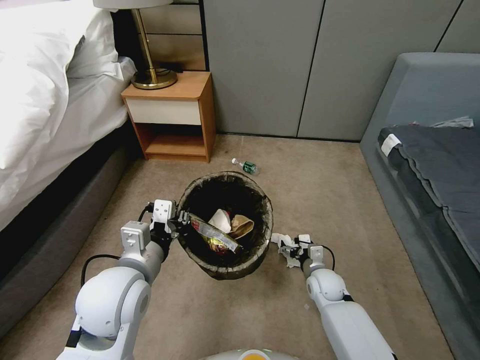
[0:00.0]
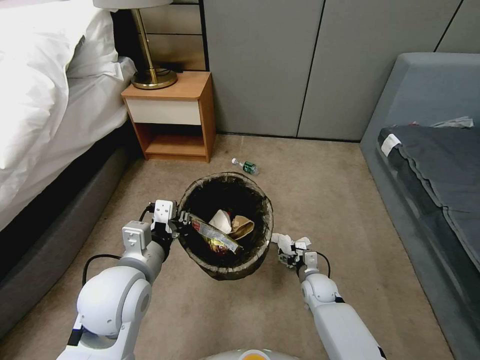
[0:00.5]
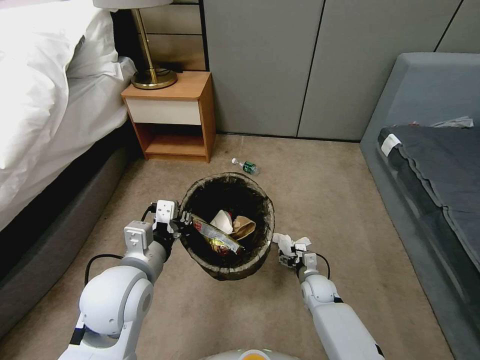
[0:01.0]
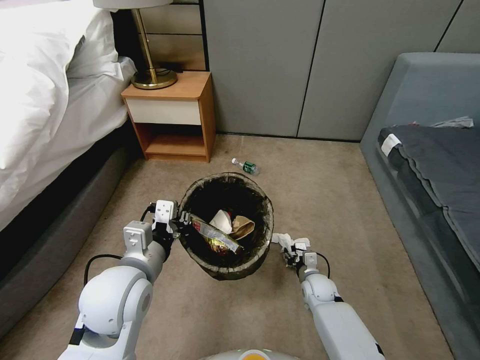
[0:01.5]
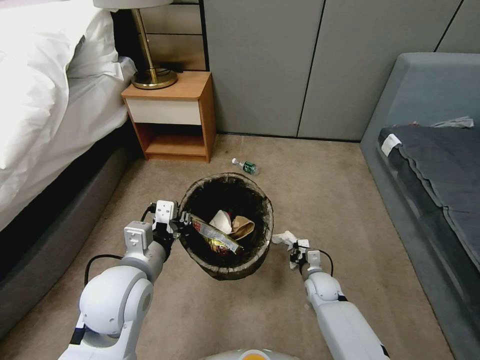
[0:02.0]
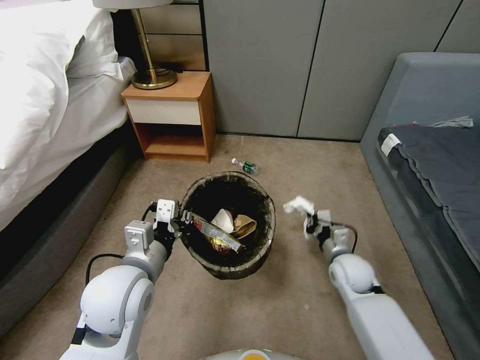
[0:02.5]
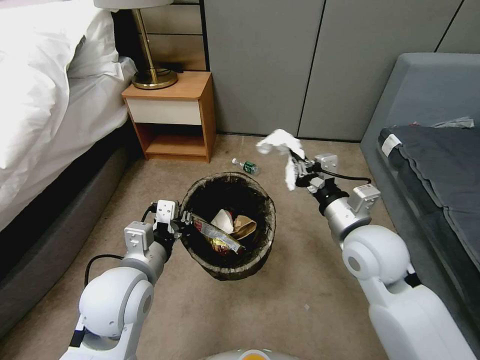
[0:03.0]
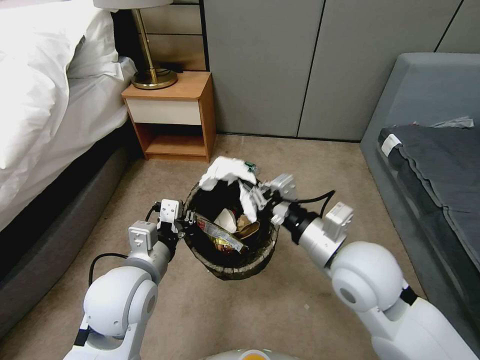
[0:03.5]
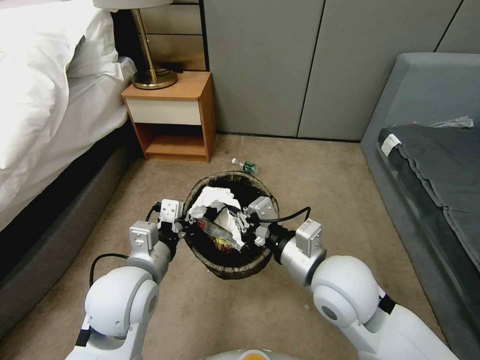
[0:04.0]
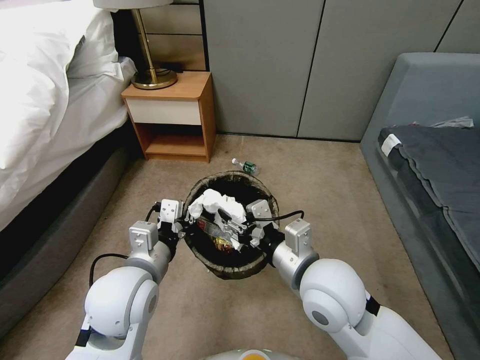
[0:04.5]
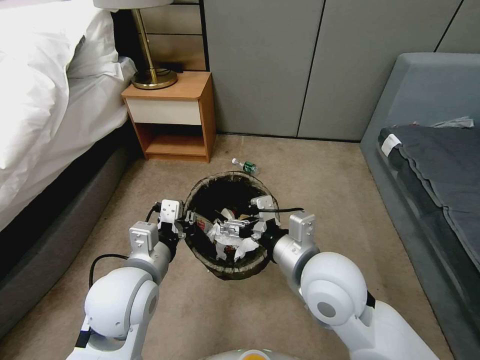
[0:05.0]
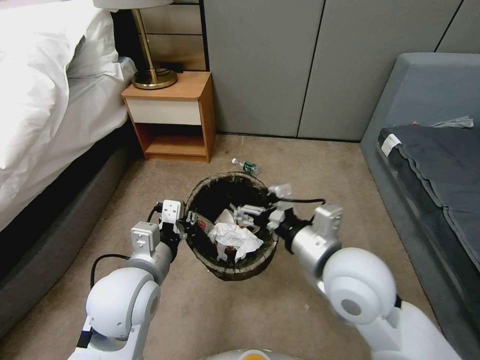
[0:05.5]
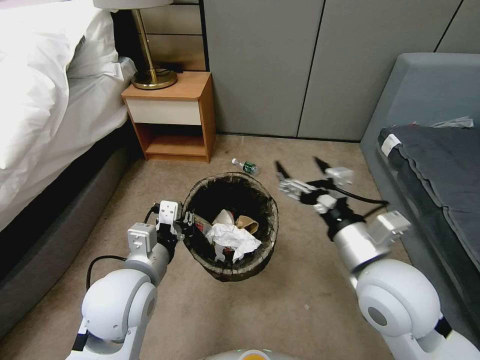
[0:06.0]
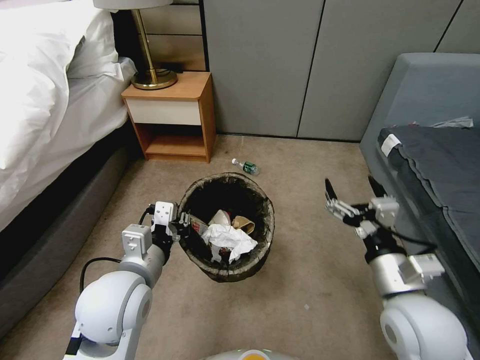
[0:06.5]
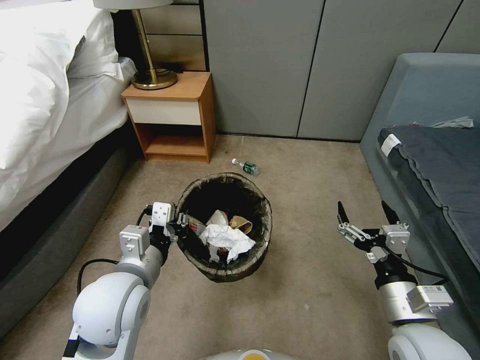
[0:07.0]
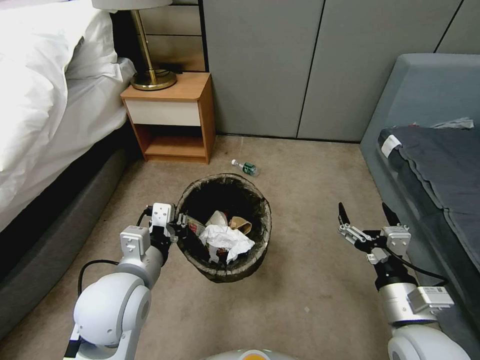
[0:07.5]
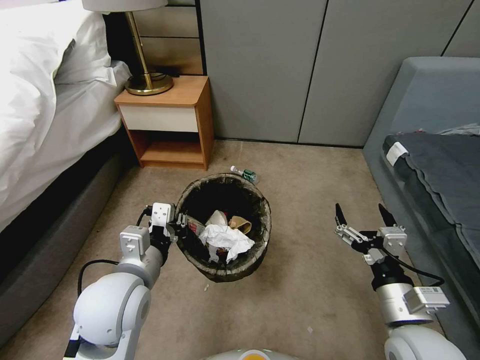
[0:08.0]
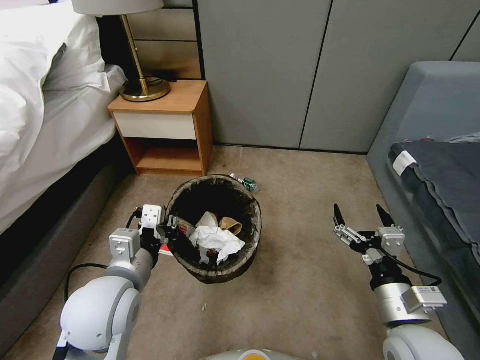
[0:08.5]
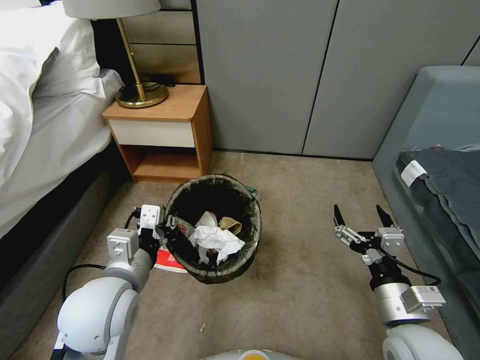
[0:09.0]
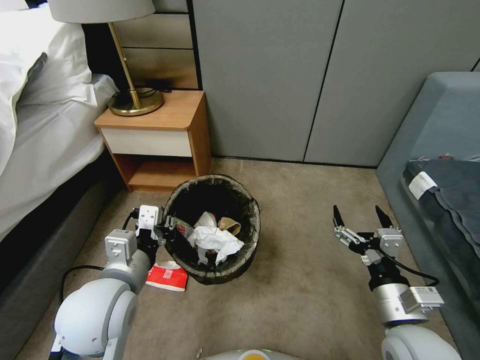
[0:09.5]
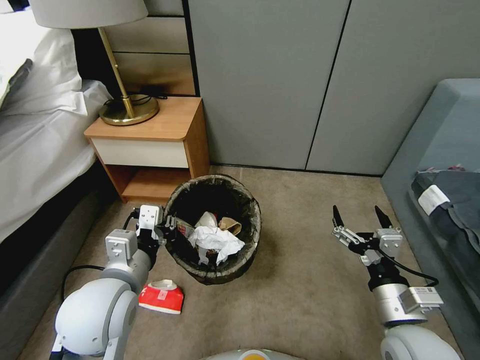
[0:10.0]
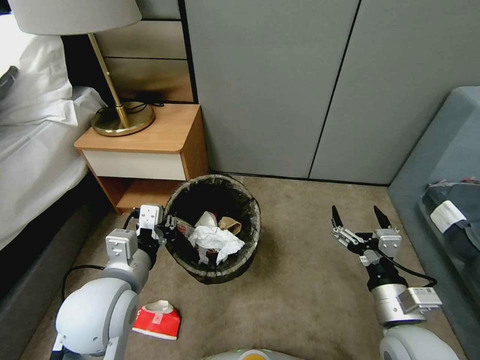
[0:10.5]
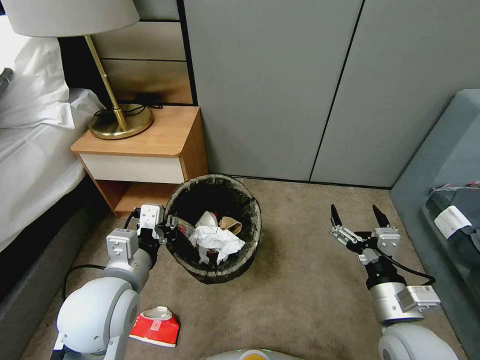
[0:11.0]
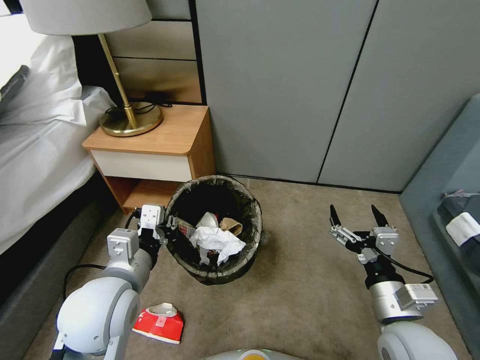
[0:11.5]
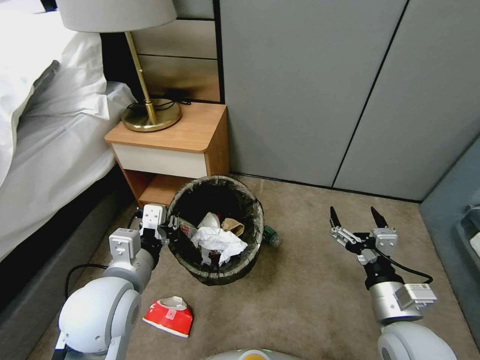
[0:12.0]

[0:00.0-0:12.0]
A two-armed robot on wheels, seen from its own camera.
Task of the whole recording: Pick up the trash bin, then pick up the garbage from the floor and place it into the trash bin.
0:00.0 to 0:02.0: The right gripper closes.
0:02.0 to 0:04.0: The right gripper shifts some 35 cm upward.
0:04.0 to 0:06.0: The right gripper goes some 5 cm to the right, and opens its fingers.
0:06.0 to 0:08.0: The right gripper shifts about 15 cm downward, to the right and backward.

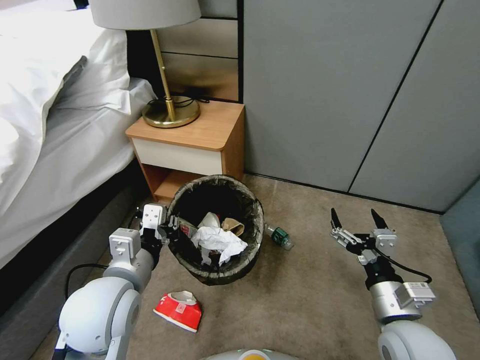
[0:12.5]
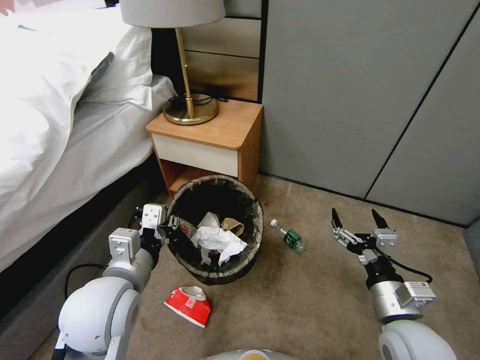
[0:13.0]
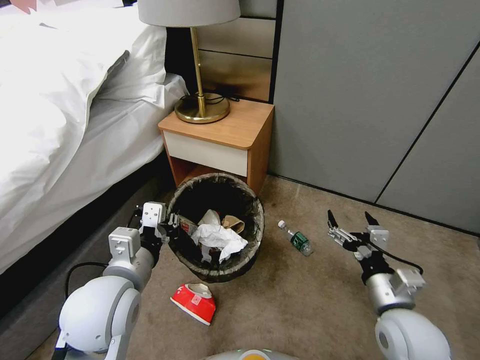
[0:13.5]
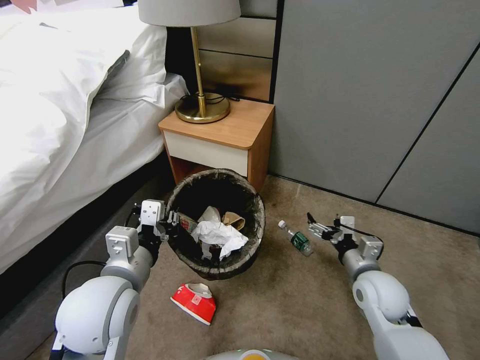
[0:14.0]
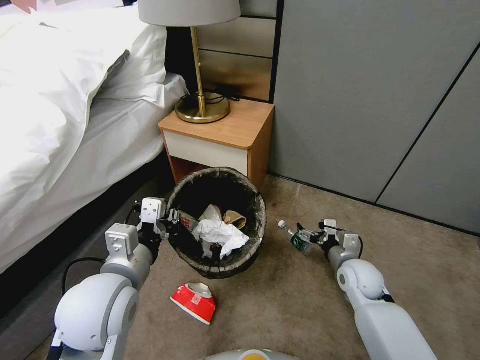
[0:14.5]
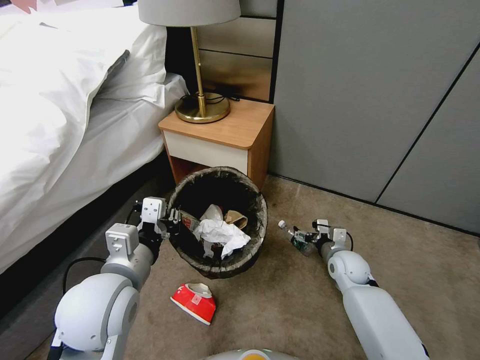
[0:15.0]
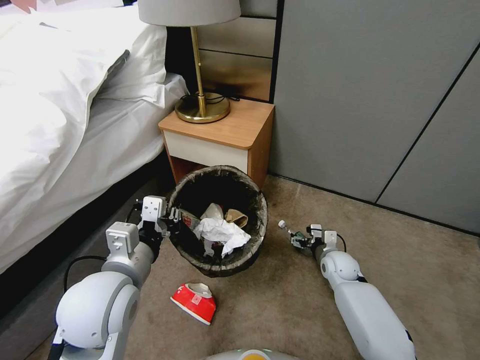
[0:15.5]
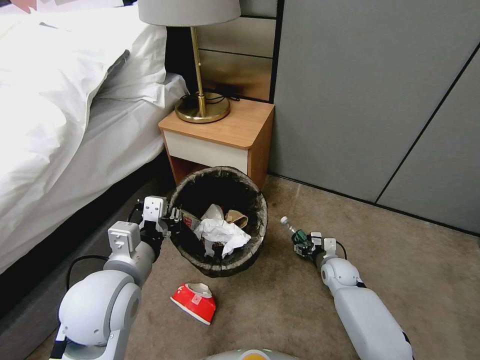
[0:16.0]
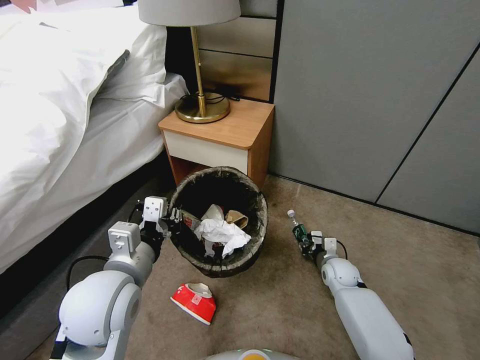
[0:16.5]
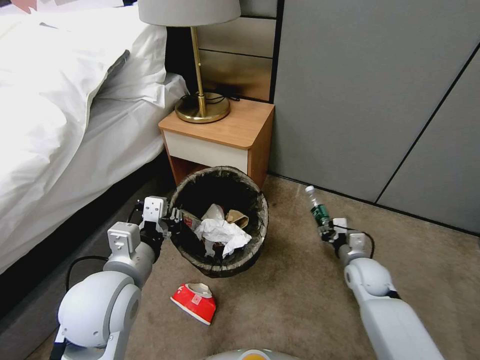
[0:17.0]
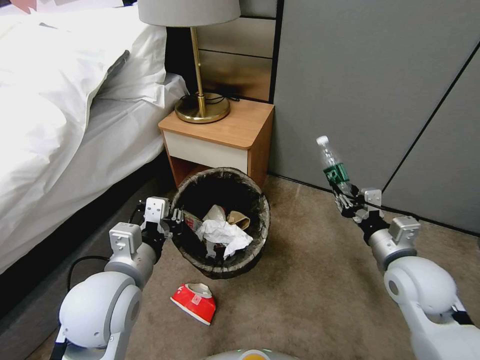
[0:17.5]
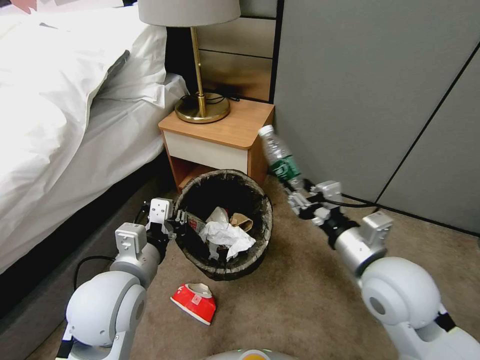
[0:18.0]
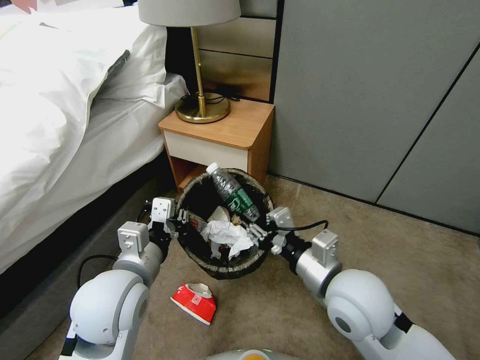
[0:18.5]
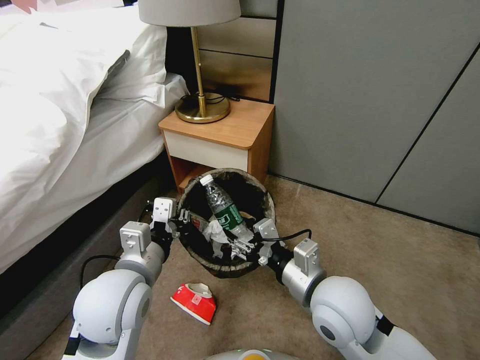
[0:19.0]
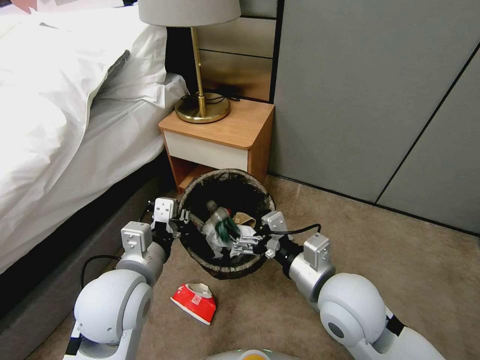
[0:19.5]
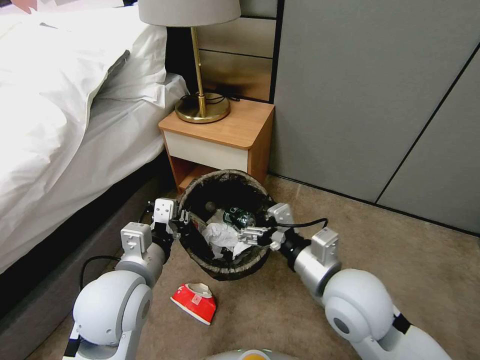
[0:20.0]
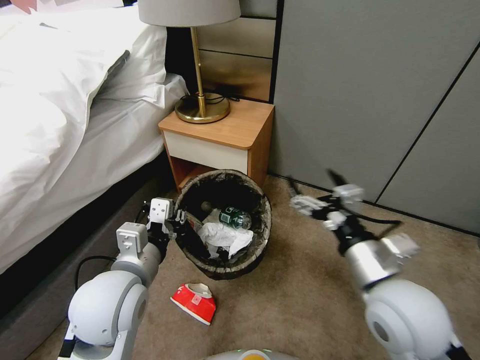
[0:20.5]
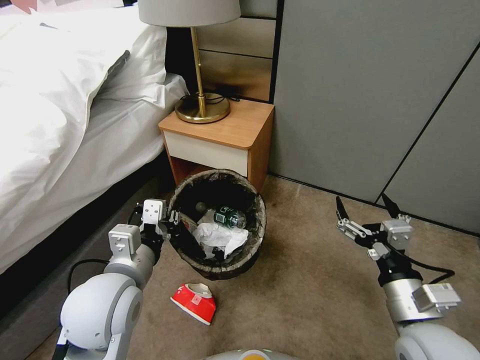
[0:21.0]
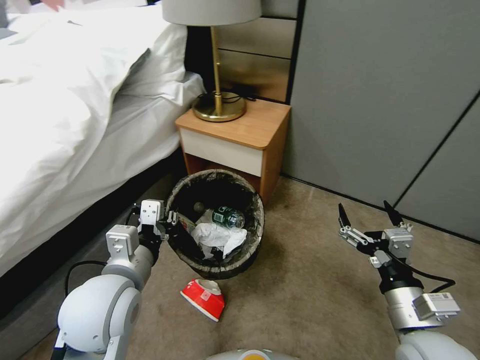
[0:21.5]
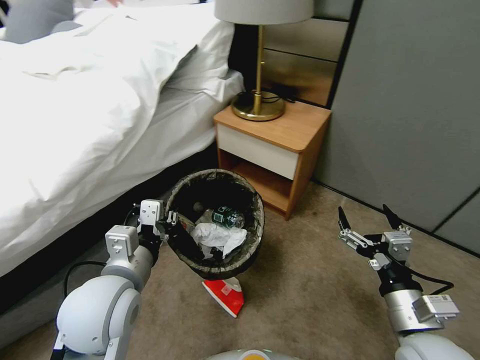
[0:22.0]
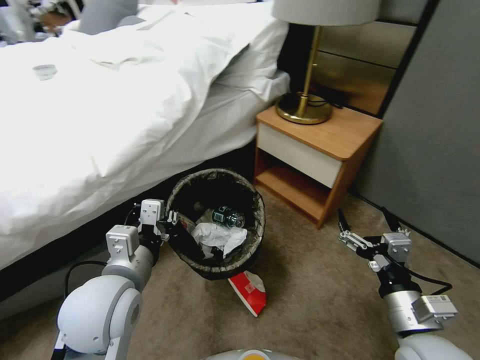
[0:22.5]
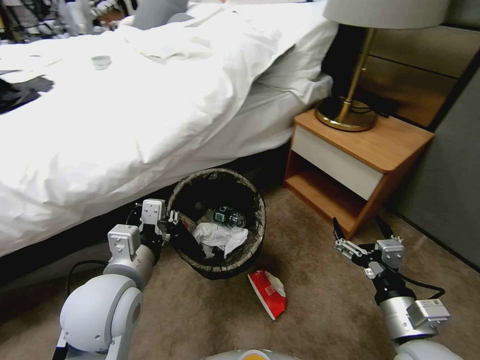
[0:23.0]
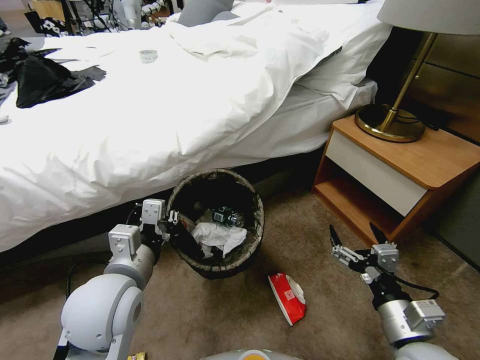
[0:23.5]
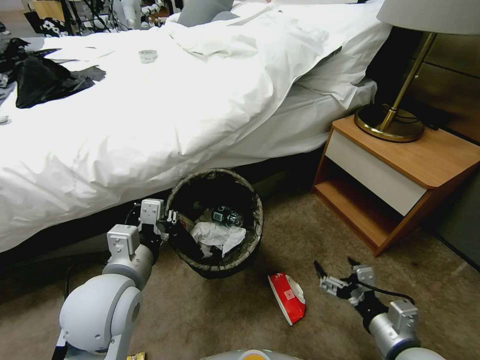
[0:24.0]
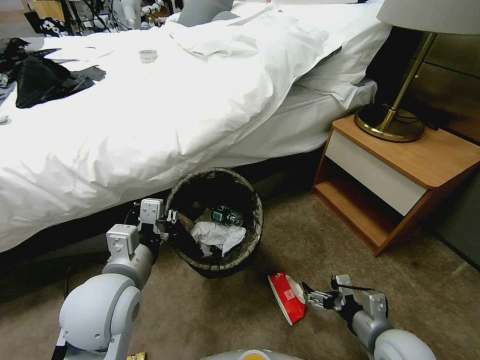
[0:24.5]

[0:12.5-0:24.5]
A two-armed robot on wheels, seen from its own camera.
Task of the whole recording: Pick up the trash bin, then pick up the garbage from the floor and place it into the trash bin.
0:12.5 to 0:14.5: The right gripper travels forward and downward by roughly 20 cm.
0:14.5 to 0:16.5: The right gripper moves downward, about 10 cm, and closes its fingers.
0:16.5 to 0:18.5: The right gripper goes approximately 30 cm upward and backward.
0:18.5 to 0:20.5: The right gripper moves to the right, about 5 cm, and opens.
0:20.5 to 0:22.5: The right gripper travels downward, to the right and backward by about 10 cm.
0:22.5 to 0:24.5: The right gripper heads downward, covering roughly 10 cm.

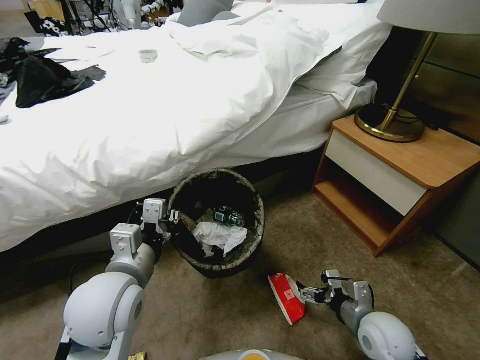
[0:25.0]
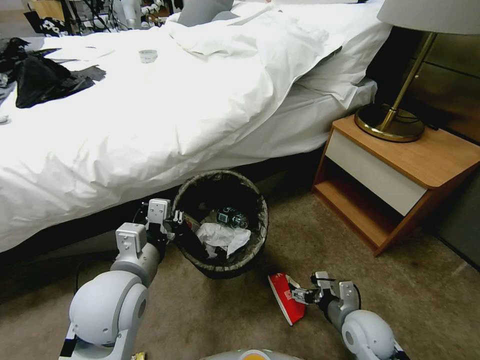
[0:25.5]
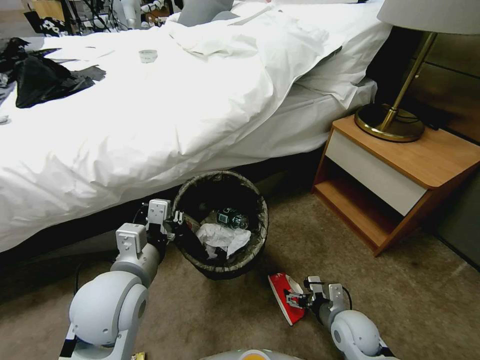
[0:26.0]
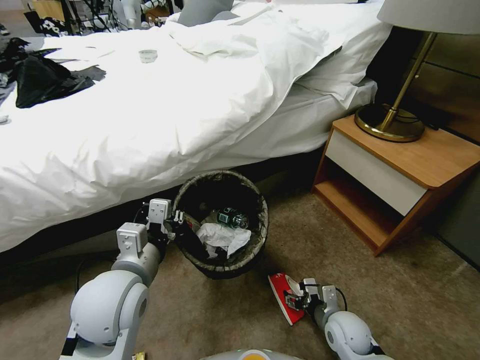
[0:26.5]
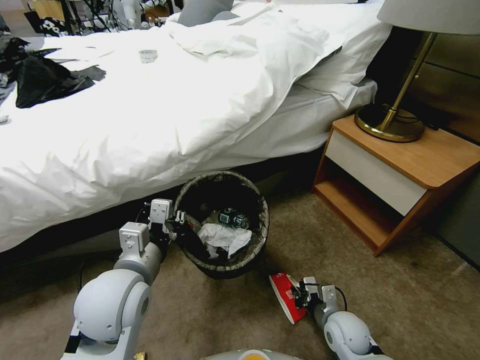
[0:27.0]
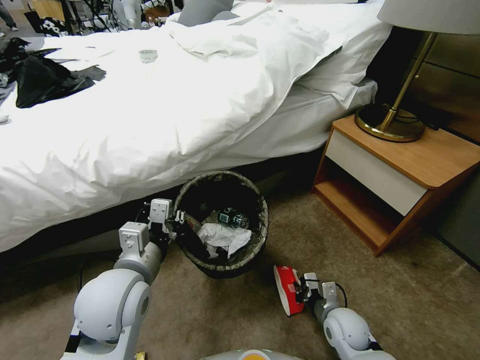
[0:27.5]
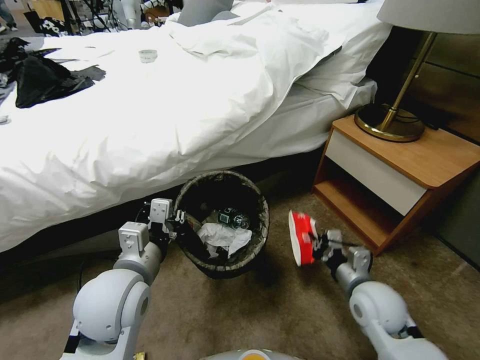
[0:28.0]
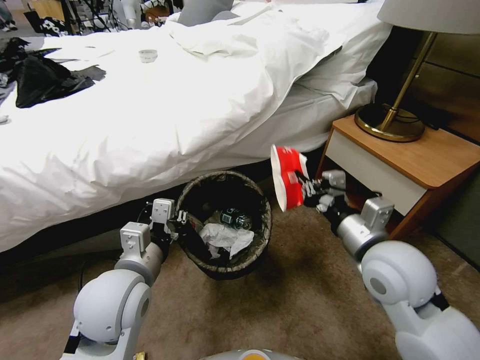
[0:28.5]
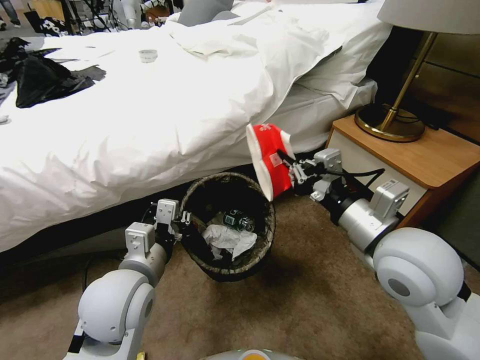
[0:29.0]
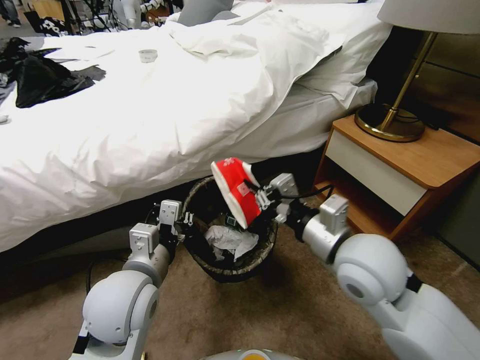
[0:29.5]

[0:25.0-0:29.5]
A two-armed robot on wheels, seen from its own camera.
Task of the whole recording: Pick up the trash bin, then pick up the garbage from the floor and place it into the trash bin.
0:25.0 to 0:27.0: The right gripper goes about 10 cm downward, and closes.
0:27.0 to 0:29.5: The right gripper moves upward, approximately 35 cm.